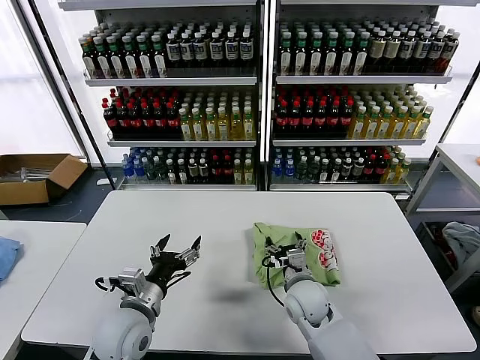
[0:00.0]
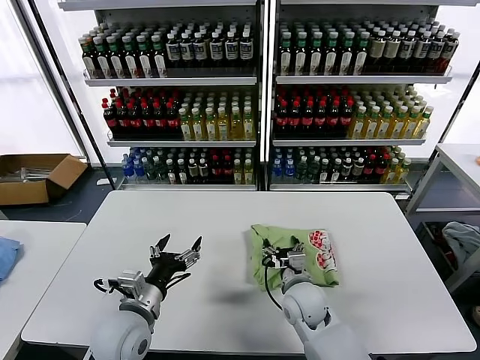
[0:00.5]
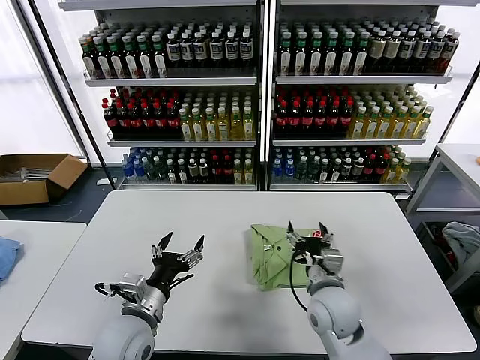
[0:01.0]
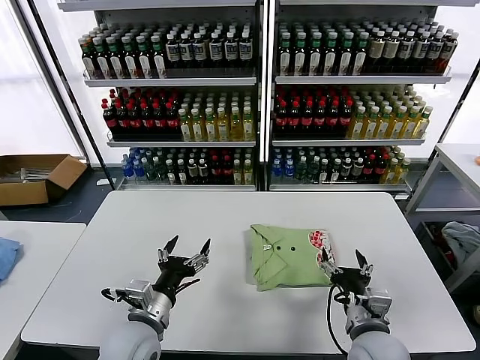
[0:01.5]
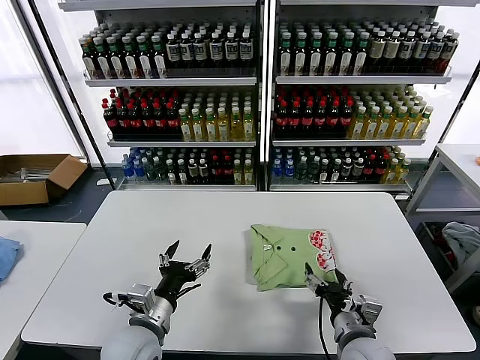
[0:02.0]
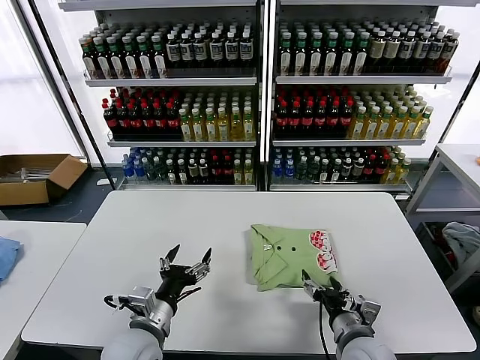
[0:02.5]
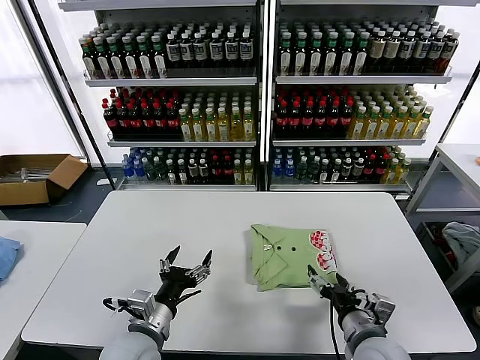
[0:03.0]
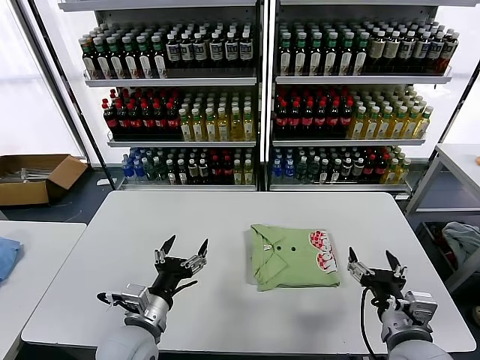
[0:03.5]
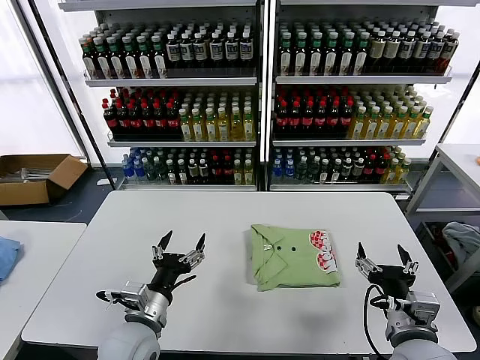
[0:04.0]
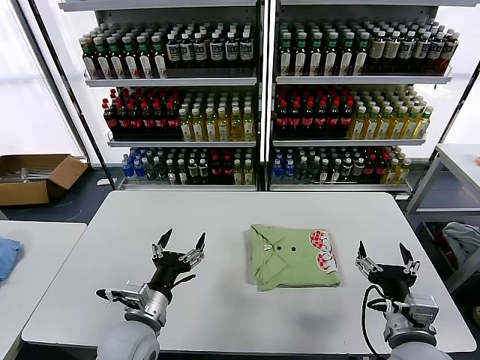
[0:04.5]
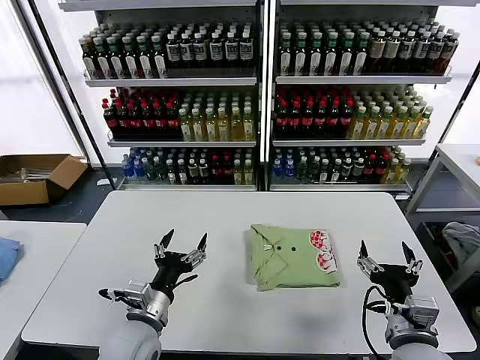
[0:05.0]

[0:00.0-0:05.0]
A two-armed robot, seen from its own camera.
Task of the whole recording: fold and organize the clothes.
Step, 0:00.0 to 0:03.0: Drag the clothes to the center of the table.
0:00.0 to 0:02.5: The right gripper is displaced backward and to the right by approximately 15 cm.
0:02.5 to 0:05.0: The right gripper heads upward, covering some 10 cm.
